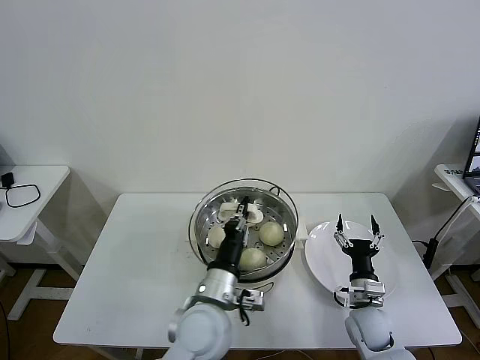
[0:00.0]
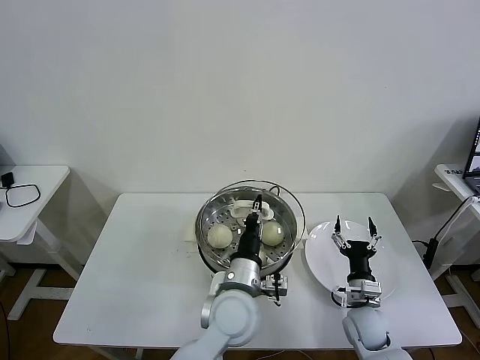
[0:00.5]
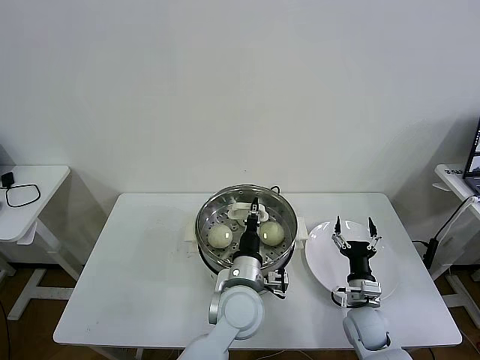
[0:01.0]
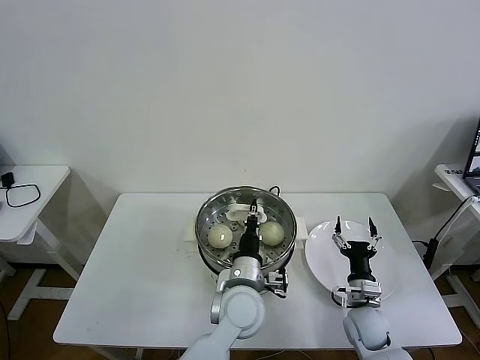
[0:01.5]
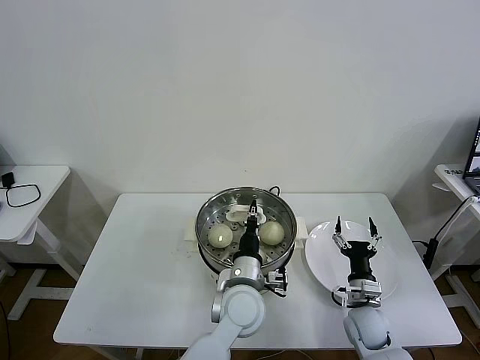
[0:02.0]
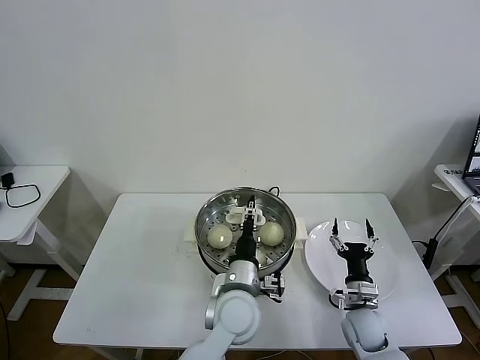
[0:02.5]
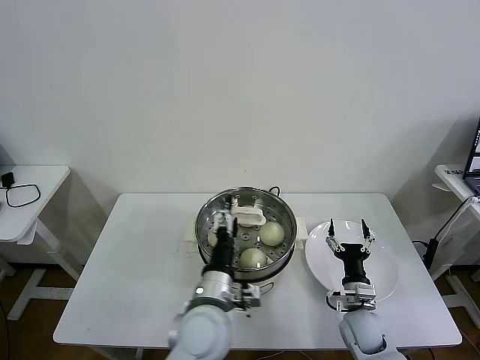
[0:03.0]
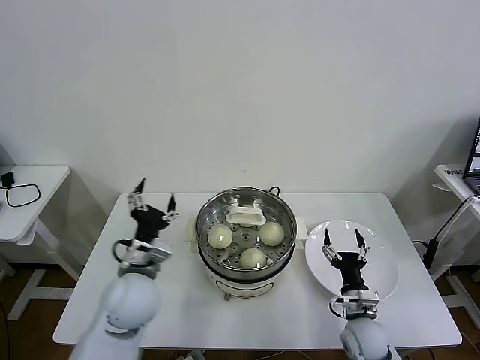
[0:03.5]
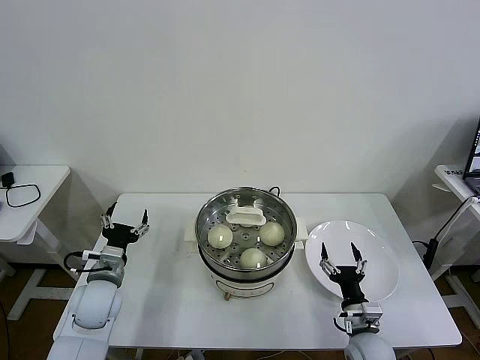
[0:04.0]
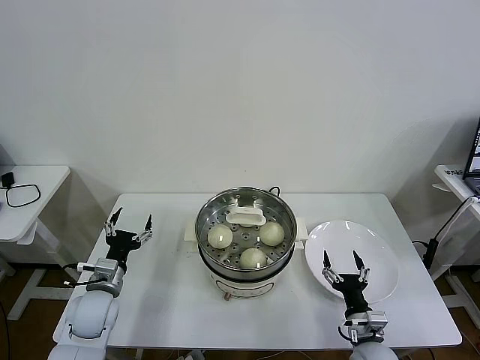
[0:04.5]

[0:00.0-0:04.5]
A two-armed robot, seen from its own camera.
Task of the whole recording: take steamed baozi put them in steamer then cover it.
Step, 0:00.0 to 0:02.5: Place the pot lid on the steamer with left gripper.
0:00.0 to 0:02.0: The left gripper goes roughly 10 cm to the right and forward.
0:02.0 to 0:04.5: The left gripper goes roughly 30 cm to the left, and opens up, while the right gripper goes some 5 cm backward.

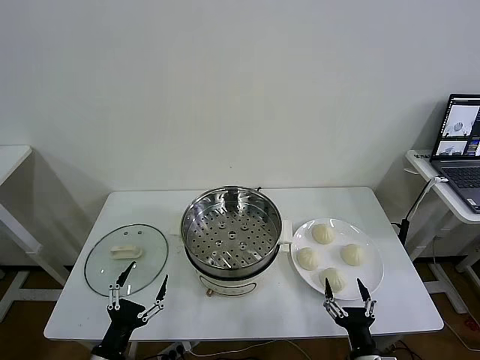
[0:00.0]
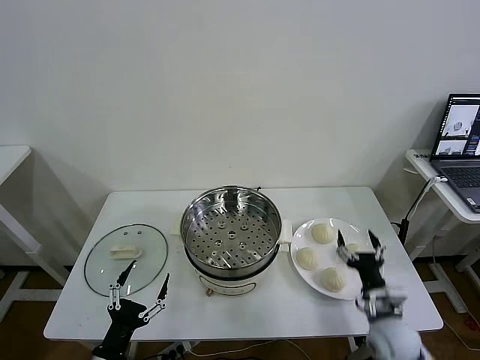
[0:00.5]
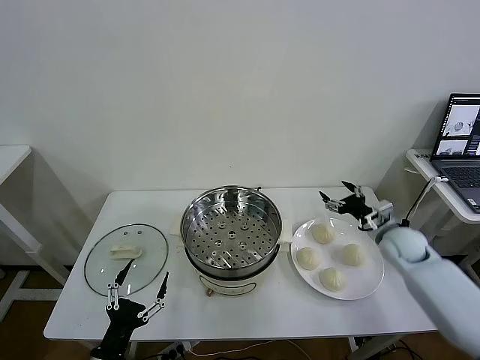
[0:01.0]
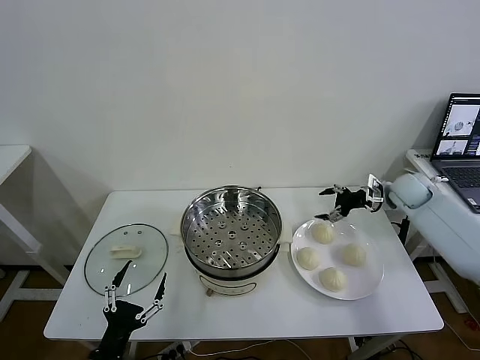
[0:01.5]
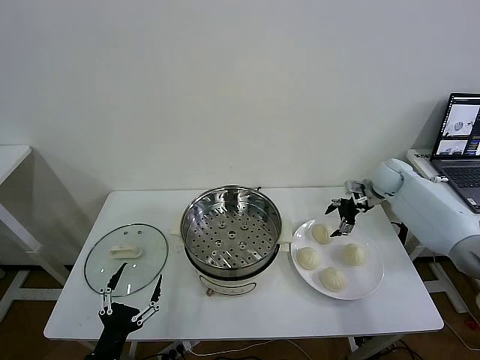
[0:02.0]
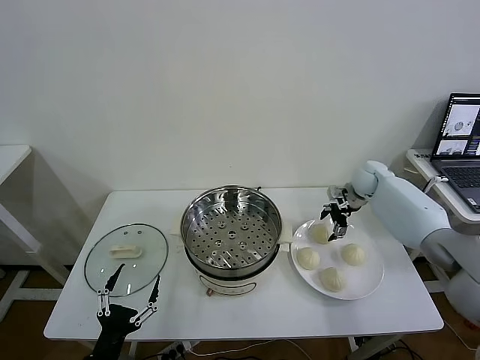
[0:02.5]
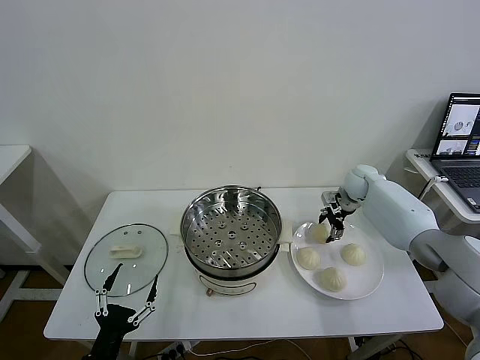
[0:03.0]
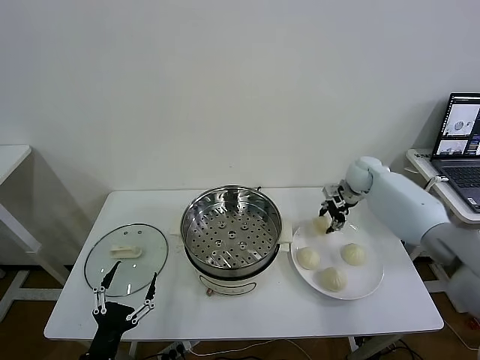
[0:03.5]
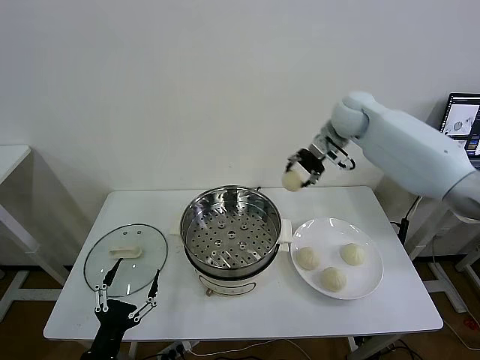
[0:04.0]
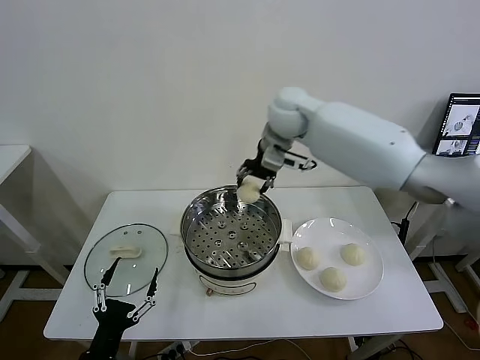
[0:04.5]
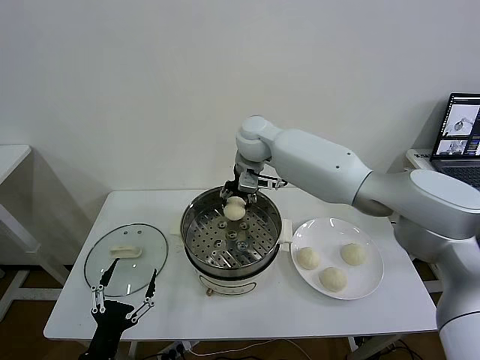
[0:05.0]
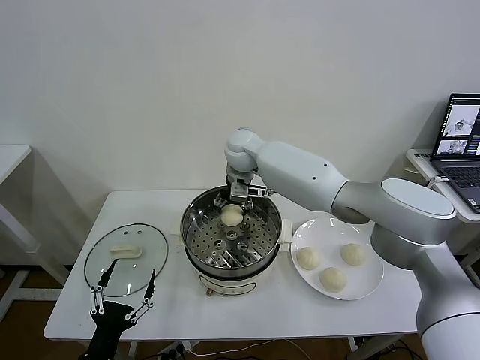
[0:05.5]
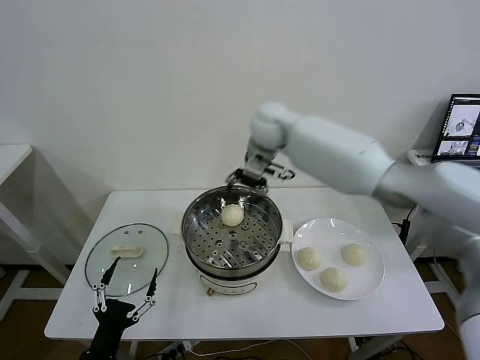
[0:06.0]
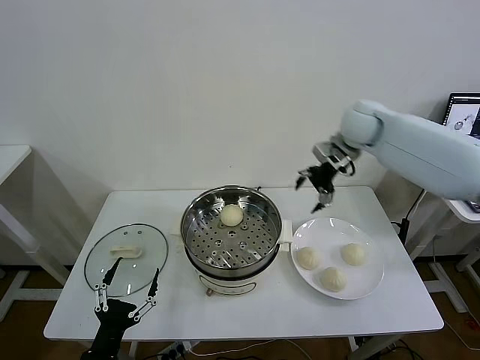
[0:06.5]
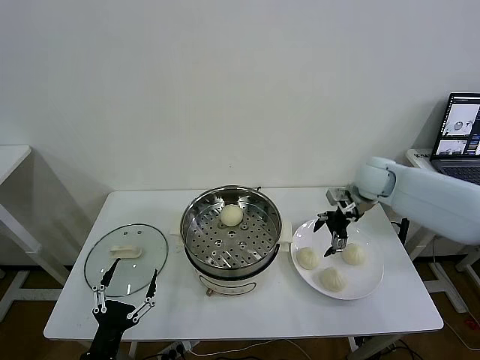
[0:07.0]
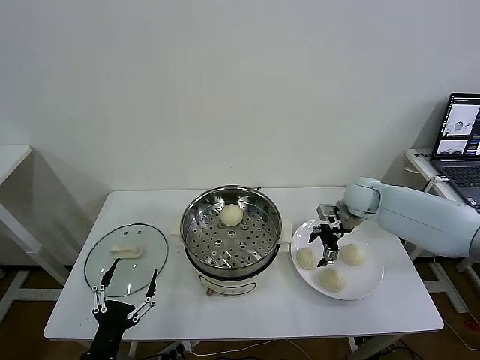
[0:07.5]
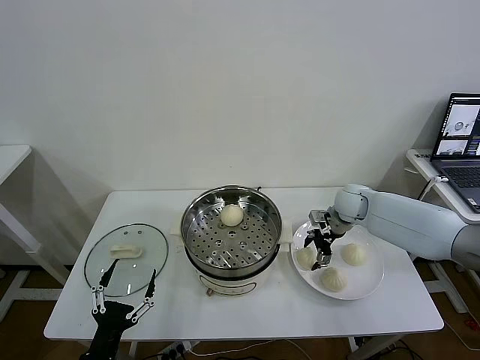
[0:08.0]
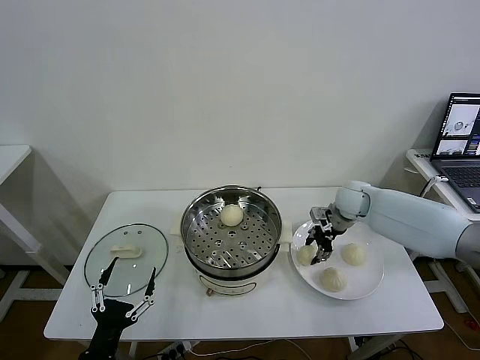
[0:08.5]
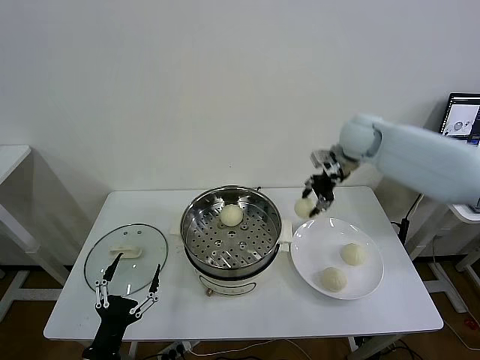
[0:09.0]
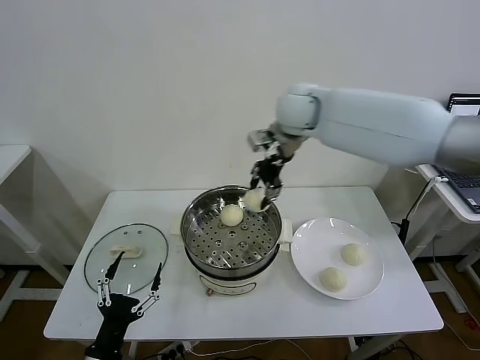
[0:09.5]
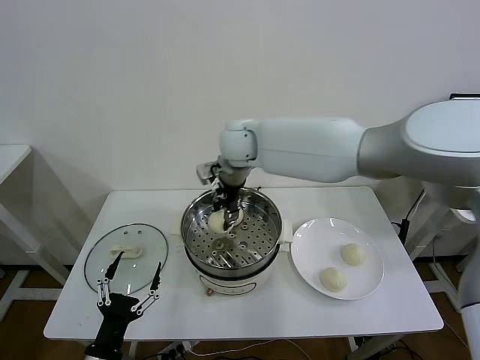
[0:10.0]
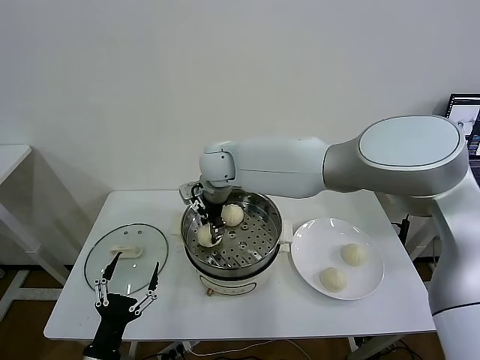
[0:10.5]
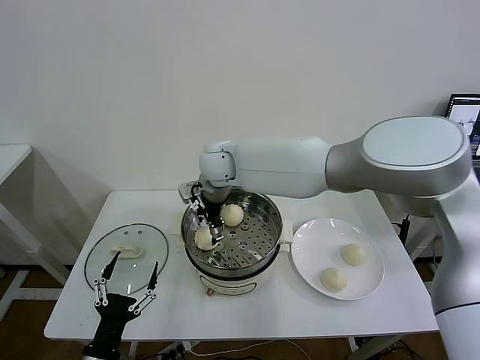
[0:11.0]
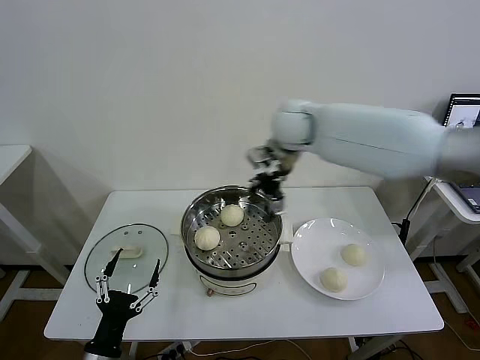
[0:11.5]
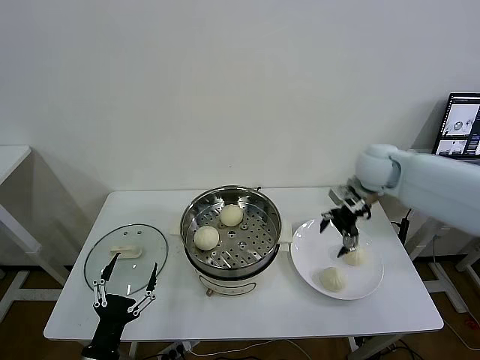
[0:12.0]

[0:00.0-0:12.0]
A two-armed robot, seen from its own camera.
Task of the whole recording: take steamed baozi put them in steamer then cover it.
Step, 0:00.0 to 0:03.0: Grasp the baozi in the plate with right gripper.
Step, 0:03.5 to 0:05.5: Place the baozi on the steamer with right gripper.
Step, 0:06.0 to 0:08.0: Grasp the baozi in the plate with right gripper.
Step, 0:08.5 to 0:11.0: Place the baozi on the steamer with right gripper.
0:02.0 to 0:04.0: The right gripper heads upward and to the left, covering about 25 cm, and closes its fingers.
0:04.0 to 0:06.0: The right gripper heads to the left, covering some 10 cm, and opens.
0:06.0 to 0:08.0: The right gripper moves downward and to the right, approximately 30 cm.
0:08.0 to 0:10.0: The right gripper shifts roughly 35 cm to the left and upward, and closes its fingers.
0:10.0 to 0:12.0: The right gripper shifts about 30 cm to the right, and opens up.

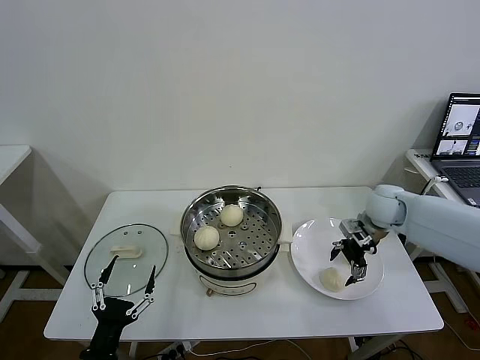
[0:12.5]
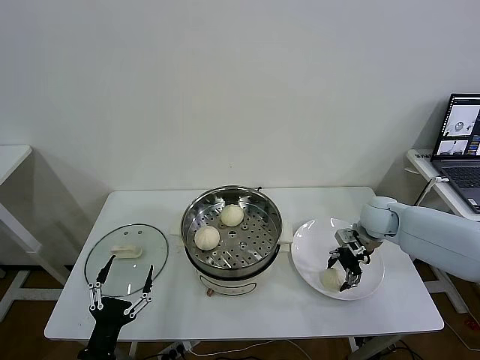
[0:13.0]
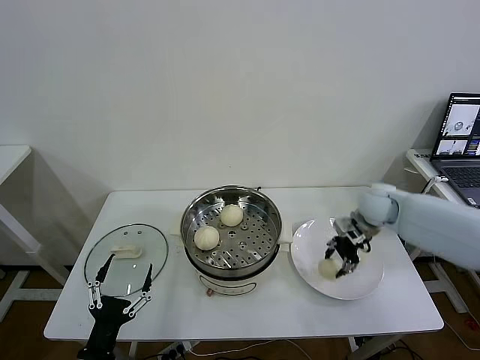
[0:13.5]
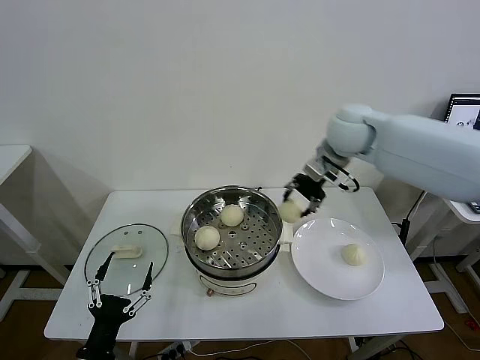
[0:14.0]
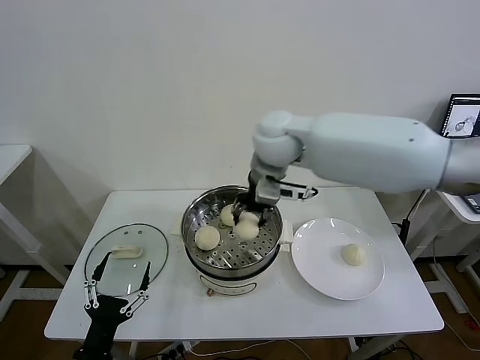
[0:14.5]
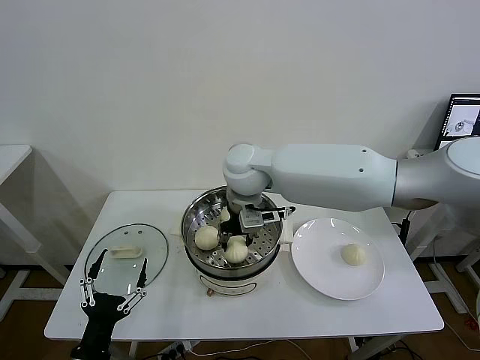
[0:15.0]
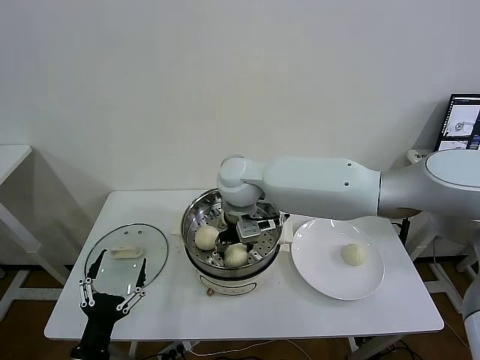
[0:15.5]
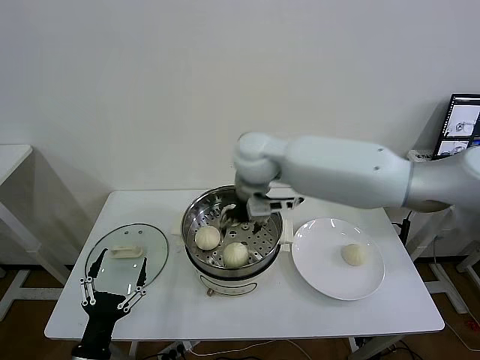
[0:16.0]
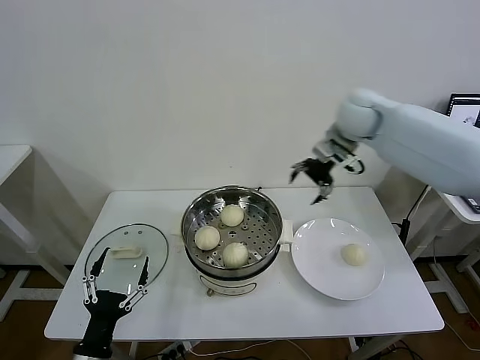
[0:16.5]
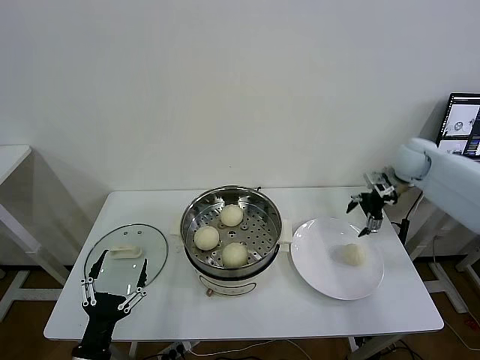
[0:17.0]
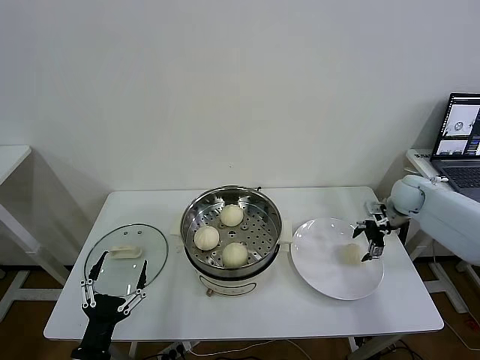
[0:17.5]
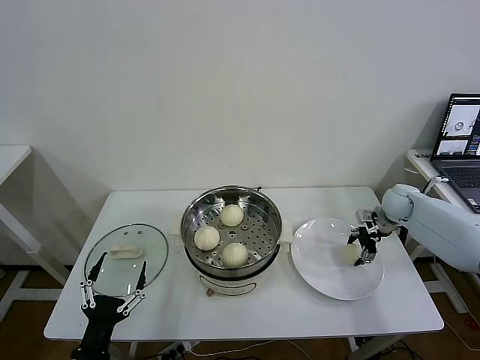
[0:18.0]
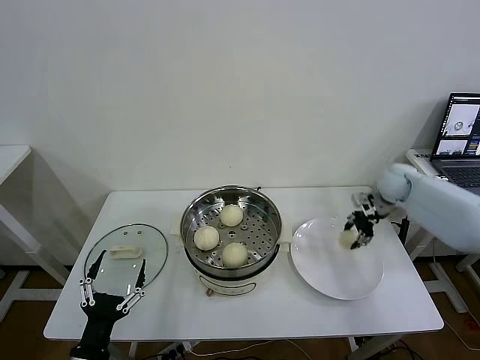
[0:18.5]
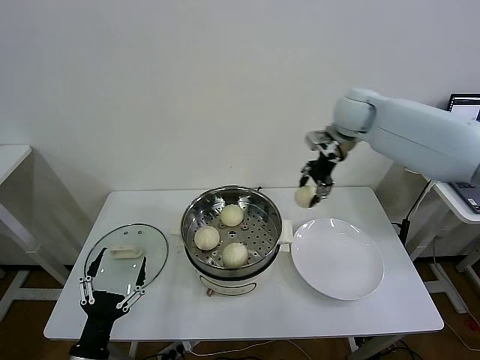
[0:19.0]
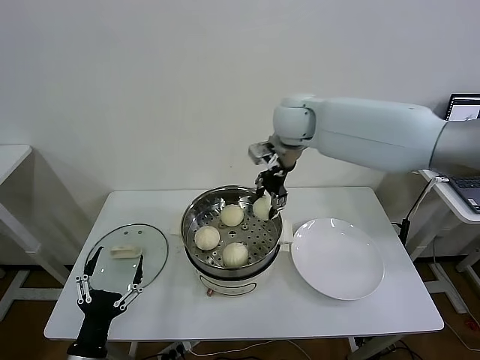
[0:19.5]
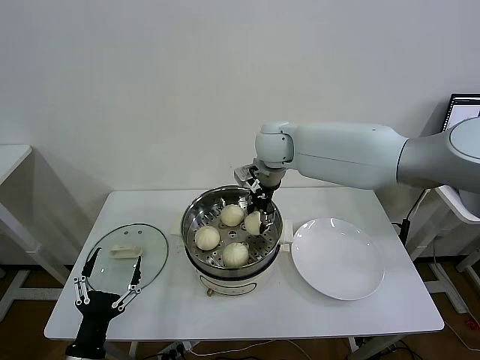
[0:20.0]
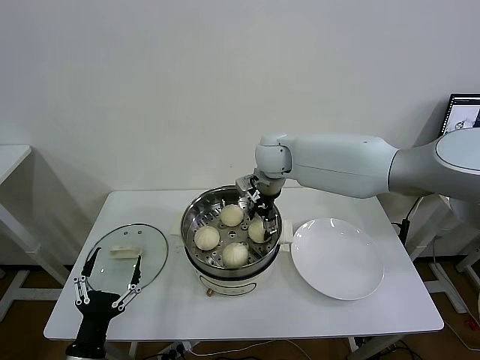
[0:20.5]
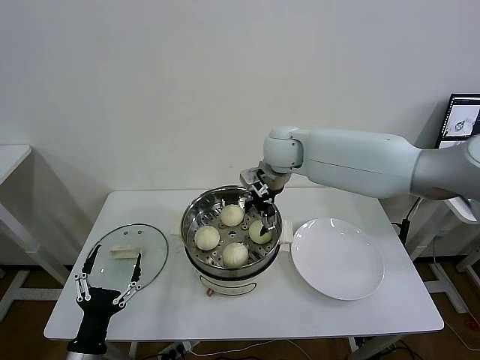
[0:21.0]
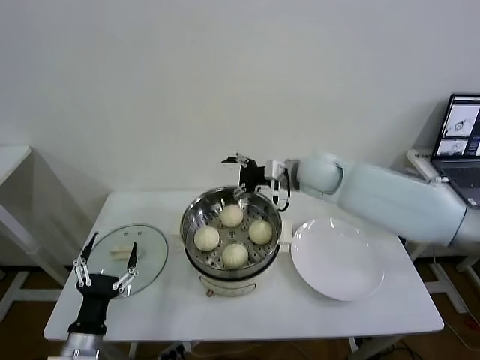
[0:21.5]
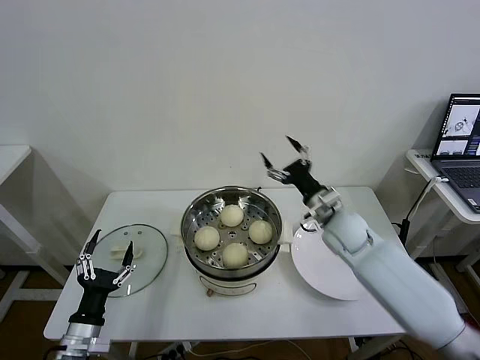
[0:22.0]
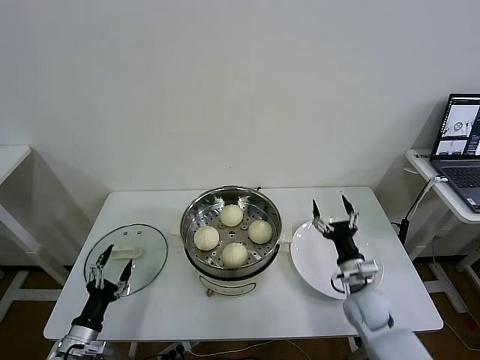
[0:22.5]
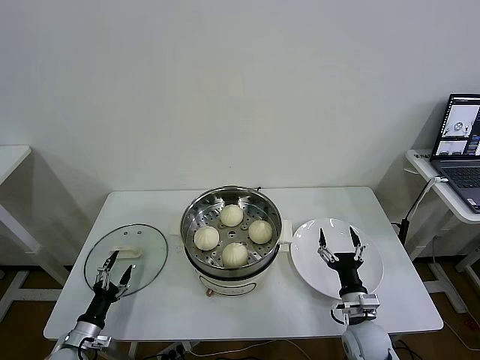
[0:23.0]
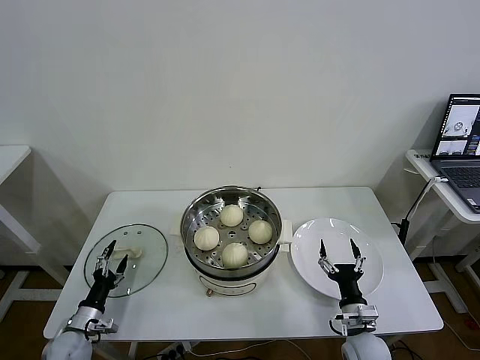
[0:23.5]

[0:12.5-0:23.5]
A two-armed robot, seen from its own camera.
Task of the whole recording: take steamed baozi put them in steamer then cover it.
Step, 0:13.5 to 0:15.5: Place the baozi on the steamer with right gripper.
Step, 0:16.0 to 0:18.0: Grasp the baozi in the plate with right gripper.
Step, 0:18.5 to 0:20.5: Place the baozi on the steamer with right gripper.
0:12.5 to 0:14.5: The right gripper shifts some 35 cm to the left and upward, and closes up.
0:14.5 to 0:16.0: The right gripper moves about 10 cm downward and comes back, and opens.
0:16.0 to 0:18.0: The right gripper moves to the right and downward, some 40 cm.
0:18.0 to 0:20.0: The right gripper moves to the left and upward, some 40 cm, and closes up.
0:20.0 to 0:21.5: The right gripper travels to the right by roughly 10 cm, and opens its fingers.
0:21.5 to 0:23.5: The left gripper moves downward, to the left and forward, approximately 20 cm; the right gripper moves downward and backward, about 40 cm.
